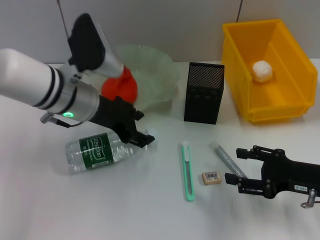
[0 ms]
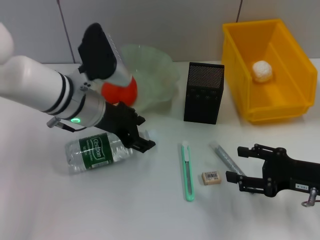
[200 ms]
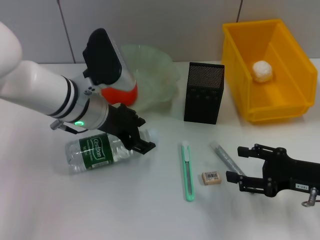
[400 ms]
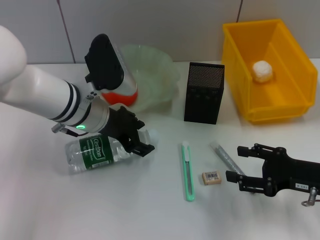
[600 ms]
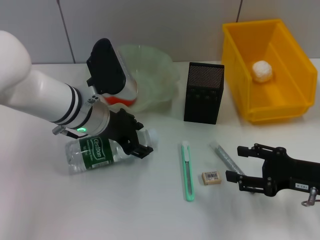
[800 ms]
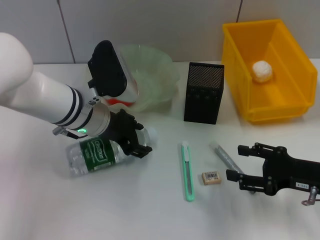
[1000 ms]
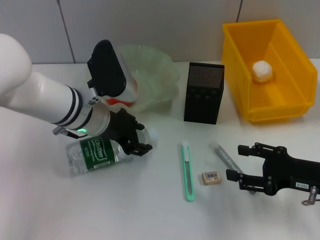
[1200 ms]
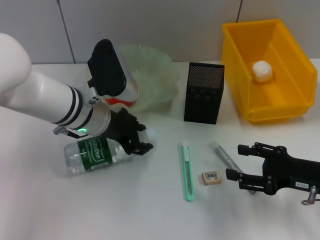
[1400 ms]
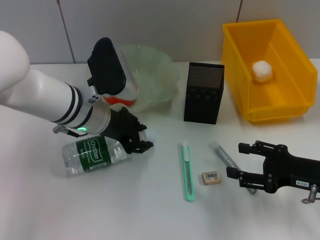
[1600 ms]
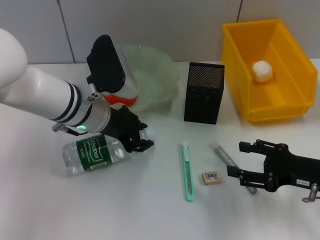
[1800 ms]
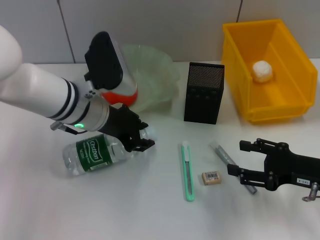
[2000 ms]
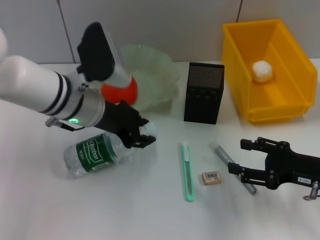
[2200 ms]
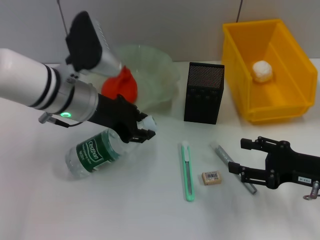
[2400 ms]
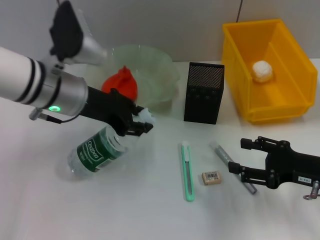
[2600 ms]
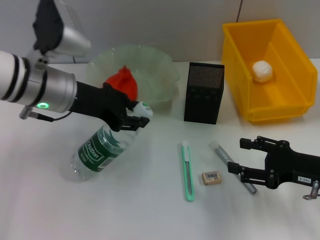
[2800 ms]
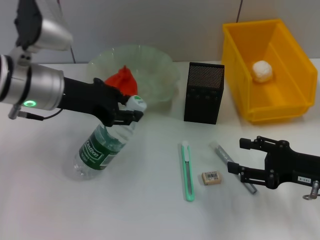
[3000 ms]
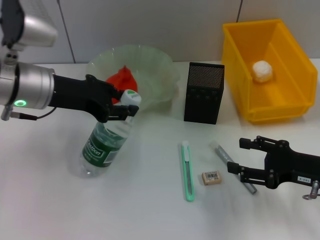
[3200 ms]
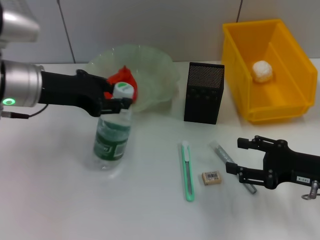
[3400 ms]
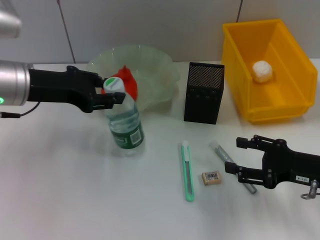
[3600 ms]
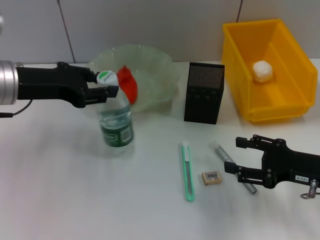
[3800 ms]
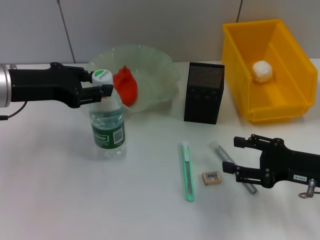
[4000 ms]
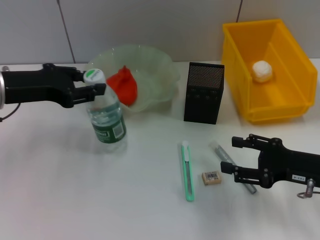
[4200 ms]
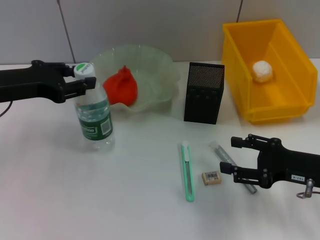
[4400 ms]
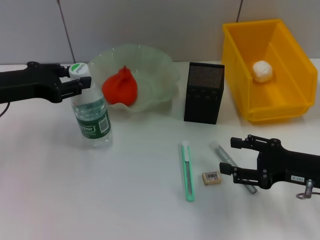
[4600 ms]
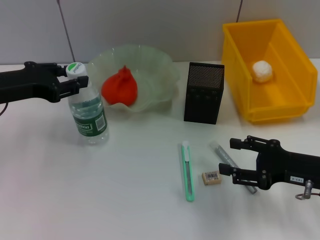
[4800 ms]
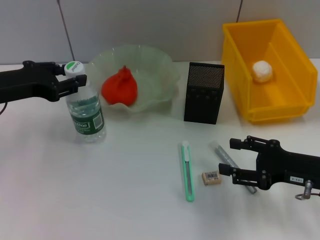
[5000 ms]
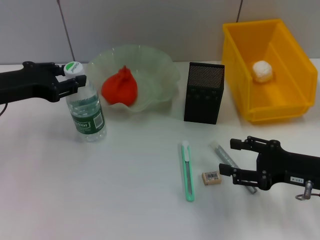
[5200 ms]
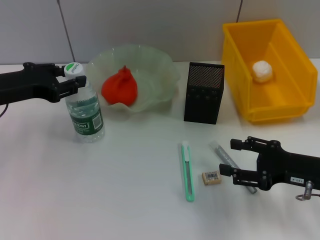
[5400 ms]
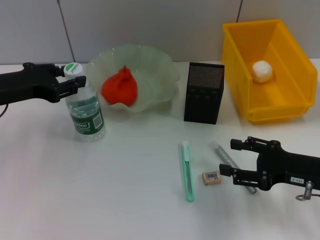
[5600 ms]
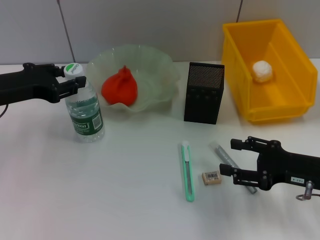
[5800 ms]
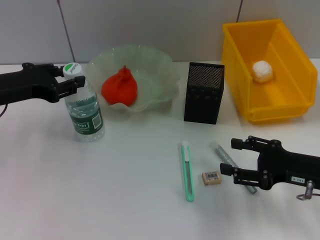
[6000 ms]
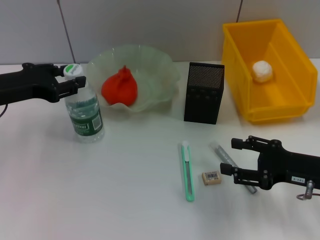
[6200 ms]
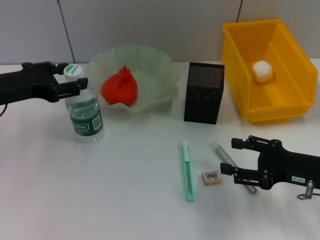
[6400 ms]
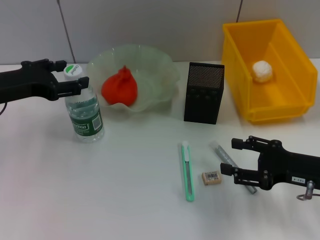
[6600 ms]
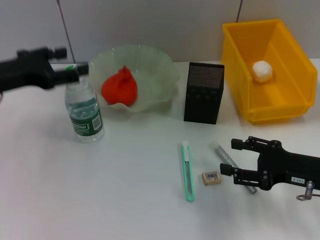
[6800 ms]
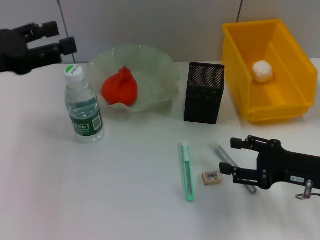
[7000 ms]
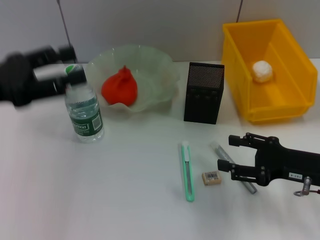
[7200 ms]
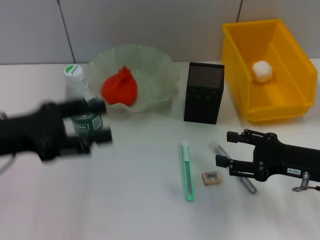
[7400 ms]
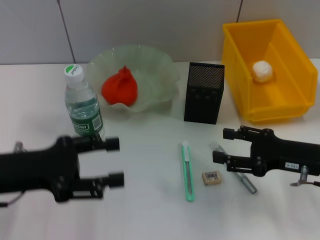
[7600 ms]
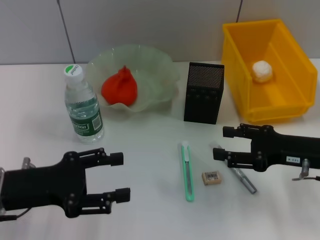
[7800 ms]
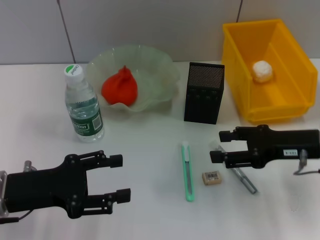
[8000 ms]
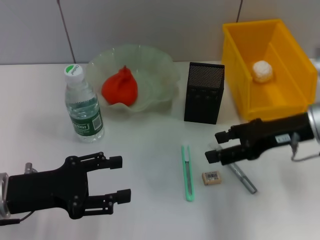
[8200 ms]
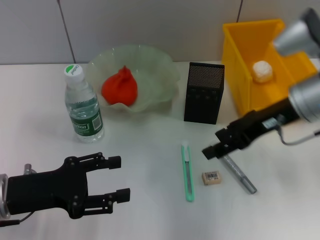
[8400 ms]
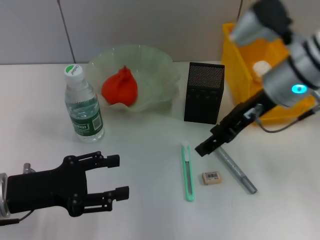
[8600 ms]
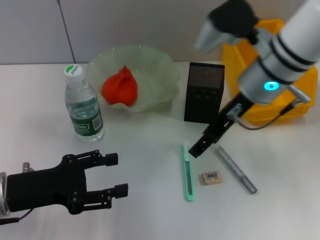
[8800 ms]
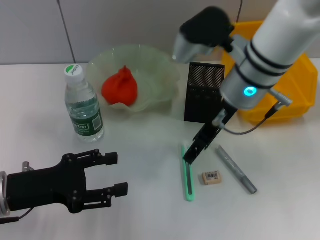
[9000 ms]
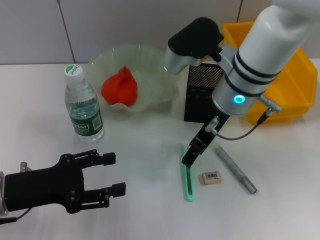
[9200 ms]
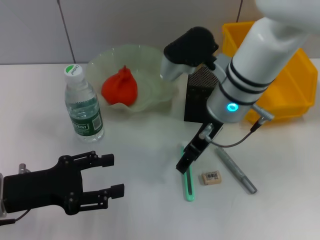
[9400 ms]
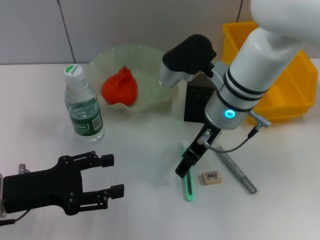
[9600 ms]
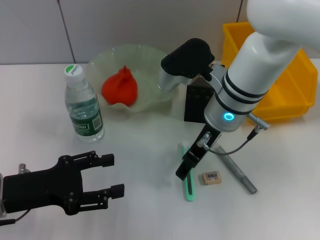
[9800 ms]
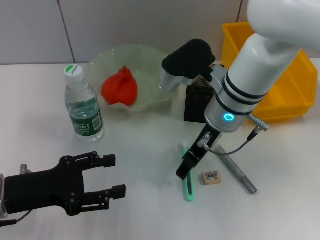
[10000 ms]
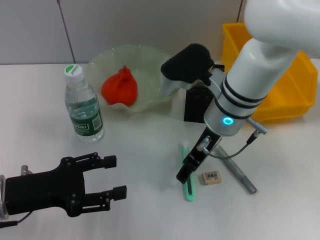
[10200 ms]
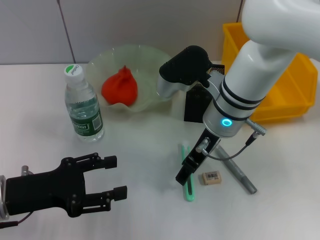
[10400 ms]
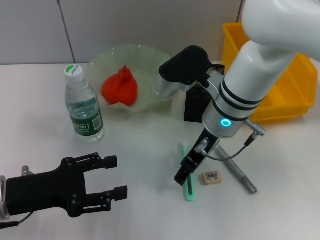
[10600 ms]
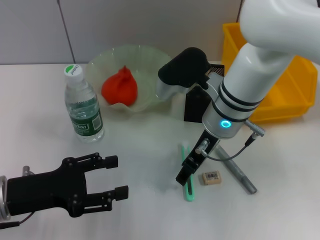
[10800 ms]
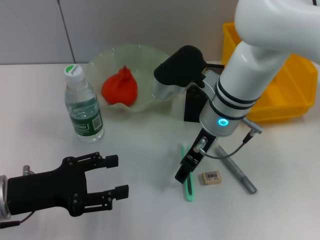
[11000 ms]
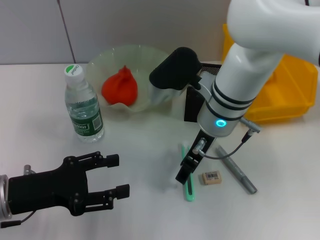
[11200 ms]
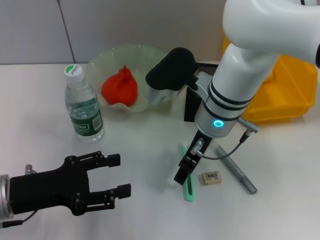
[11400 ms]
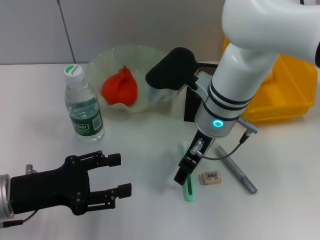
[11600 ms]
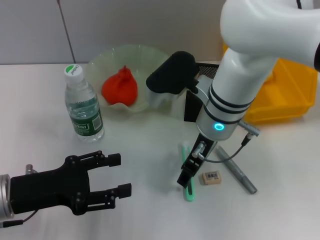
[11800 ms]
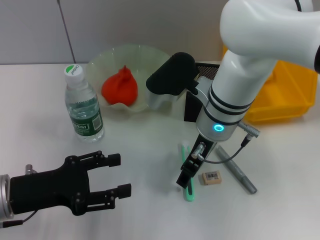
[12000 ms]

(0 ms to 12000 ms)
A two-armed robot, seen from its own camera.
Step, 1600 ms - 6600 ms: Place the water bottle on the table with the left hand.
0 ms - 1600 ms: The grippers move only a little.
1600 ms - 3000 ms: The left gripper shifts some 10 cm upward and to the left.
3000 ms - 4400 ms: The left gripper travels to the left by approximately 10 cm.
4400 ms - 6000 ms: The grippers stay close to where they were, moving slightly.
6000 ms - 7600 ms: The left gripper goes approximately 10 cm backward, and opens its fingers.
7600 ms - 9000 ms: The right gripper moves to the left, upward and forward, about 20 cm.
9000 ms - 10400 ms: The right gripper moves downward, roughly 5 cm.
10400 ms - 12000 ms: The grippers stay close to where they were, moving slightly.

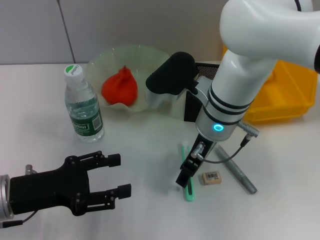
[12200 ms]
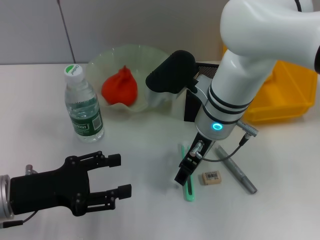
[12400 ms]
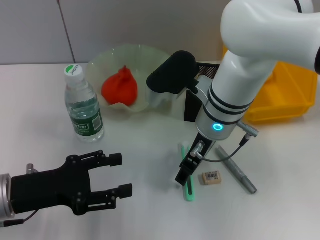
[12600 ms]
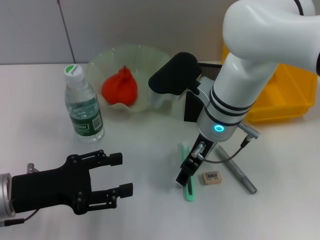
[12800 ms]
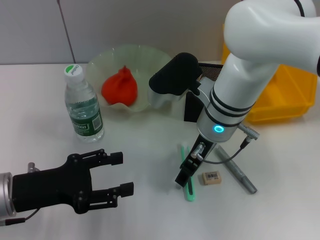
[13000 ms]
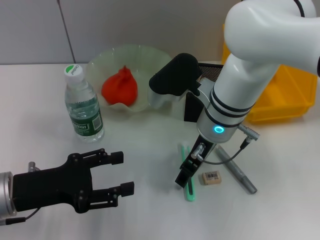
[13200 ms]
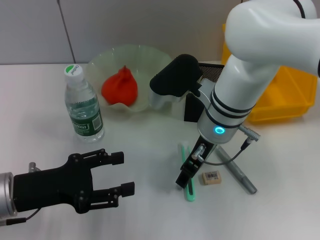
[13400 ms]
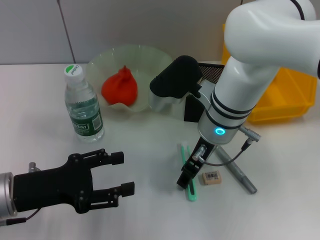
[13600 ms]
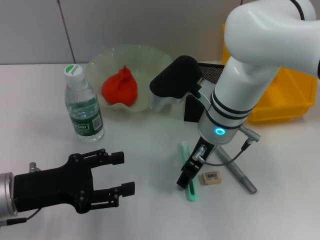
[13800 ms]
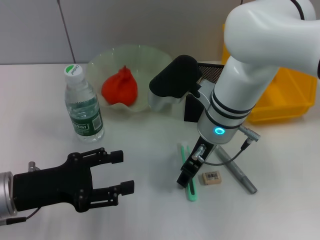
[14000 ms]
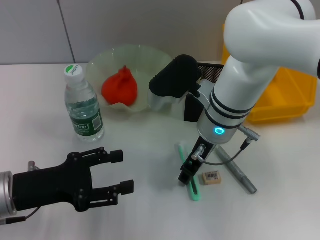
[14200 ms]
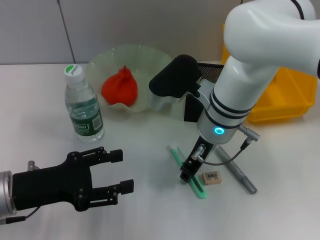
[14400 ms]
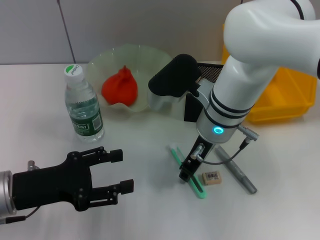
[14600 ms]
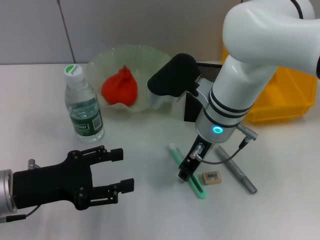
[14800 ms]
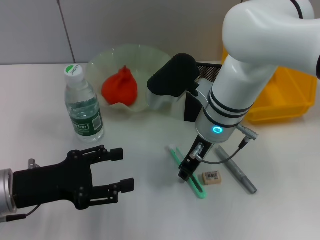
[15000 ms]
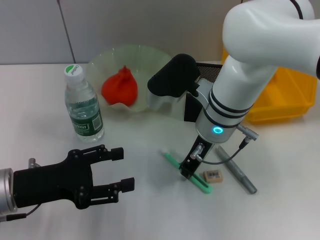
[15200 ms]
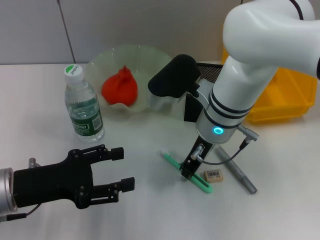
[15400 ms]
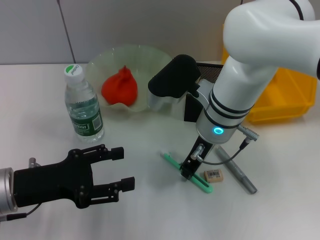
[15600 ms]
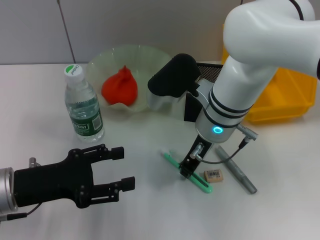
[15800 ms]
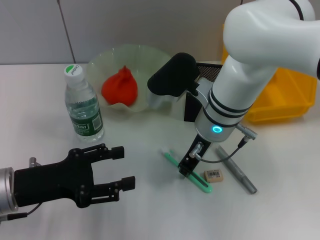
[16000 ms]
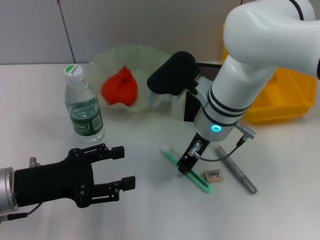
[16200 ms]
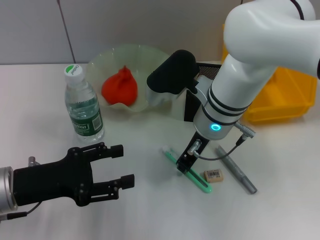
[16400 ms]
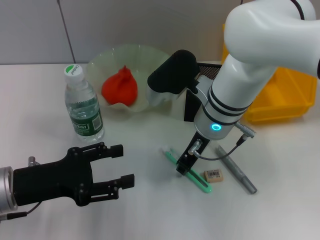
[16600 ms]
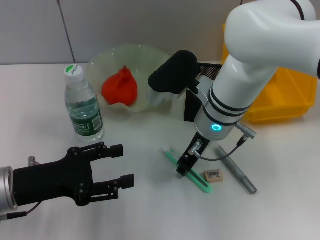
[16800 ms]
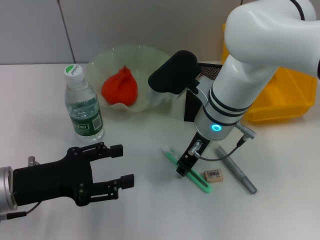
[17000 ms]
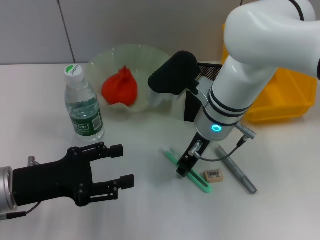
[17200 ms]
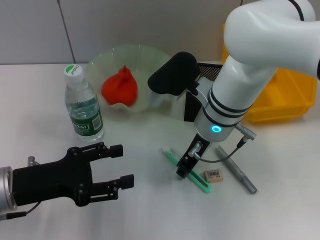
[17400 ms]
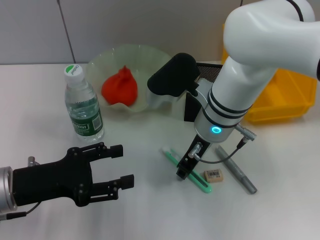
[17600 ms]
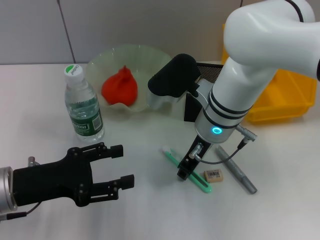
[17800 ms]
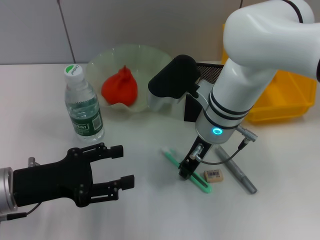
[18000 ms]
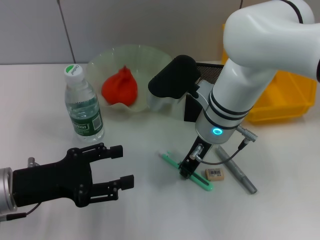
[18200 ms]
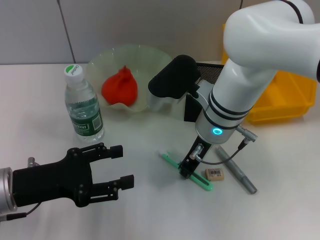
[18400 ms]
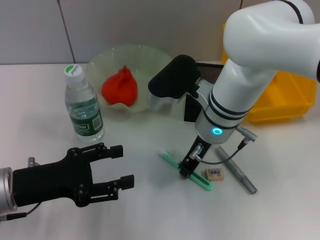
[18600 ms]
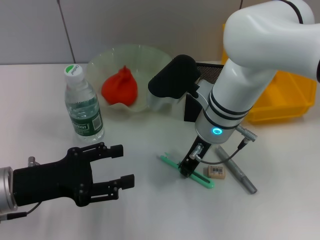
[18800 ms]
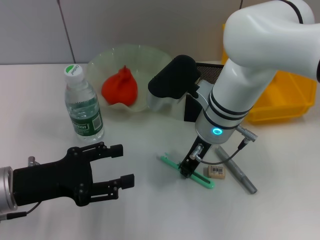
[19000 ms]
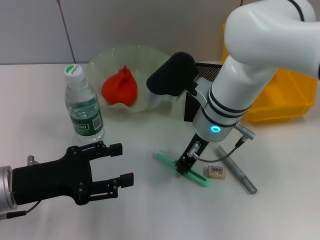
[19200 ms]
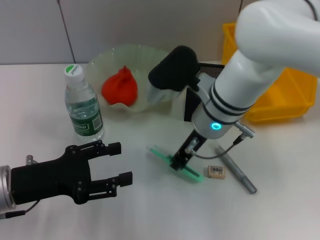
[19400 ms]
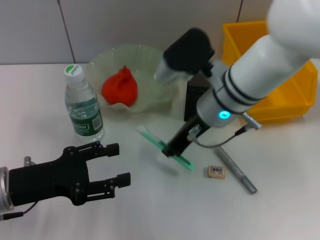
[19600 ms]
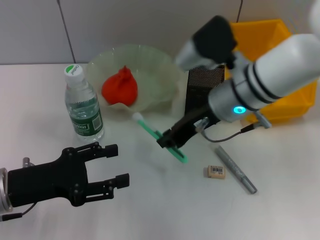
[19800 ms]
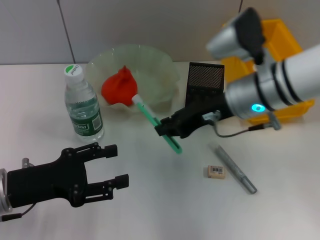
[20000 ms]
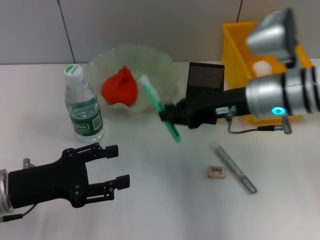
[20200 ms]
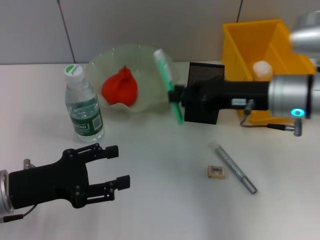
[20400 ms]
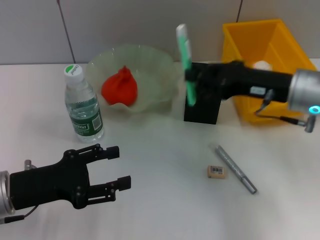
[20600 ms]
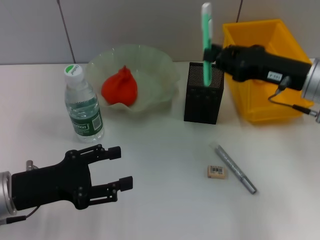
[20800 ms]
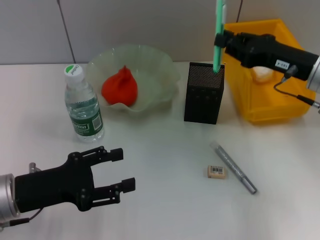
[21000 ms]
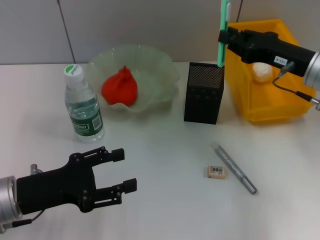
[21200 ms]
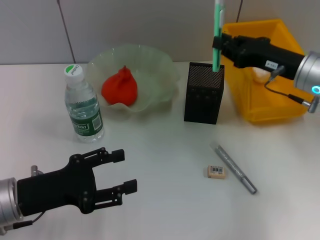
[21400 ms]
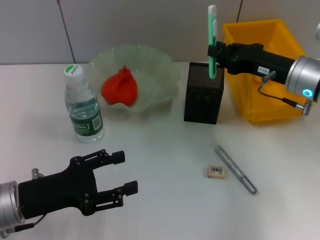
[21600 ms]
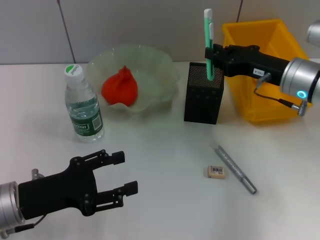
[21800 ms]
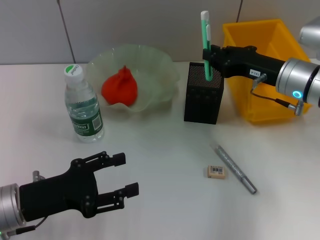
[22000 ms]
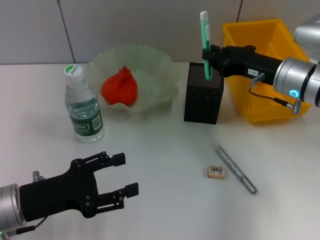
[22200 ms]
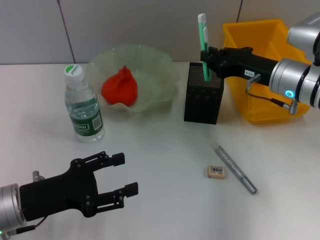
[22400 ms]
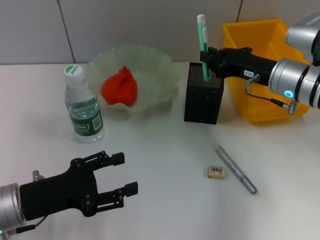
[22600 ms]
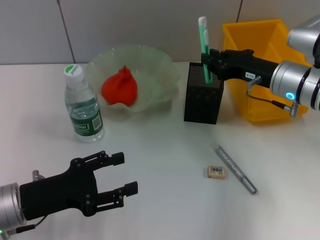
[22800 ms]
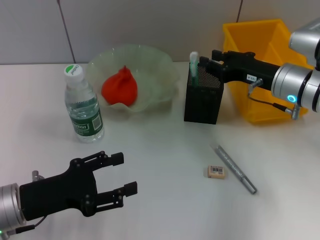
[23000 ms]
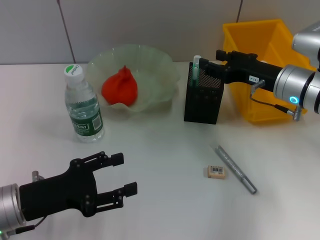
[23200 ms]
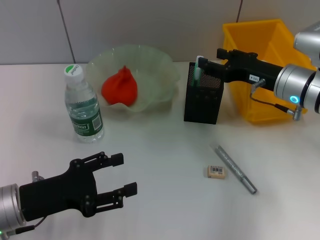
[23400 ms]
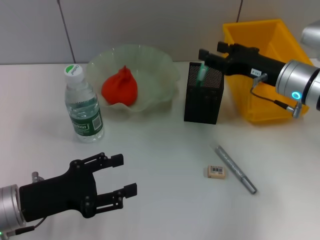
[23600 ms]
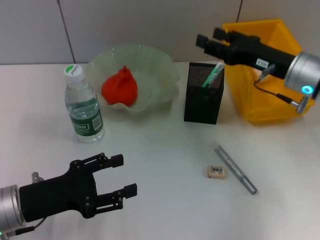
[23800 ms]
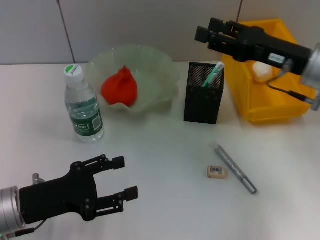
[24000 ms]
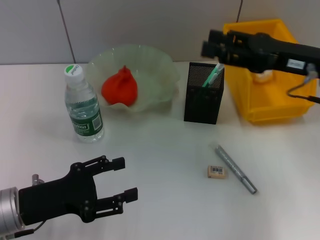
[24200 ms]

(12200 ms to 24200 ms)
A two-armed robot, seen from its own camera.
Step, 12200 ms - 18600 ms: Grab the blue utility knife with the right hand.
Step, 18800 ms - 23400 ms: Place the blue utility knife into the pen holder with the right hand.
12200 ms - 13800 ms: Both grippers stay about where they are.
13800 ms - 15200 ms: The right gripper closes.
15200 ms - 18200 ms: The two grippers keep their place.
18200 ms - 19800 ms: The right gripper moves some 5 cm.
19800 ms - 21200 ms: The right gripper goes approximately 15 cm to the right.
21200 ms - 22600 ms: The right gripper changes place by about 5 cm.
22600 ms - 24200 ms: The right gripper moves upward, approximately 5 cm, and opens.
